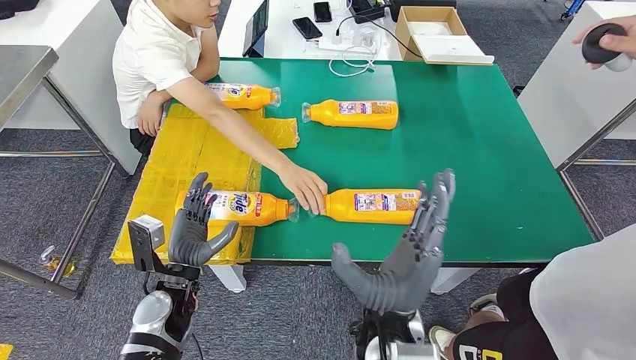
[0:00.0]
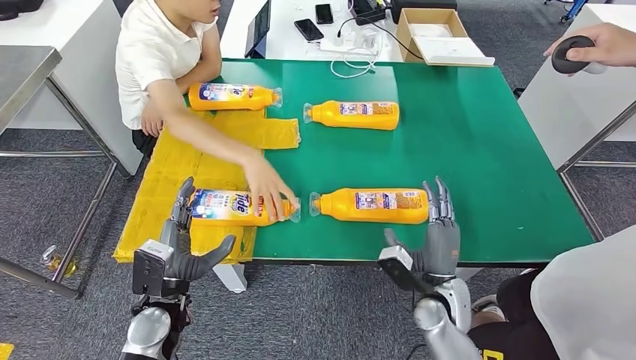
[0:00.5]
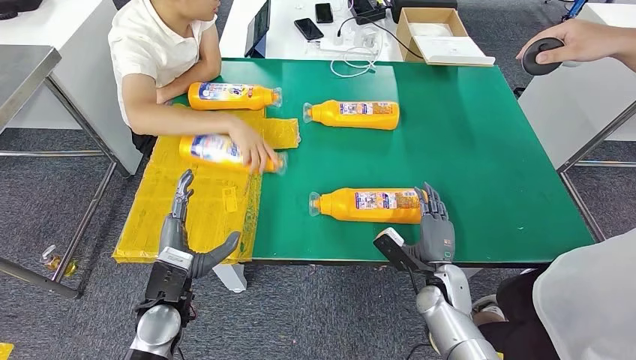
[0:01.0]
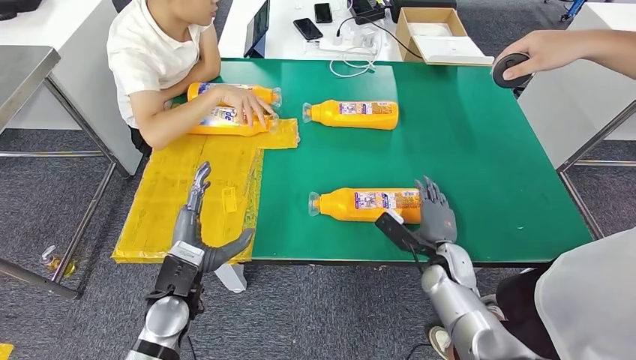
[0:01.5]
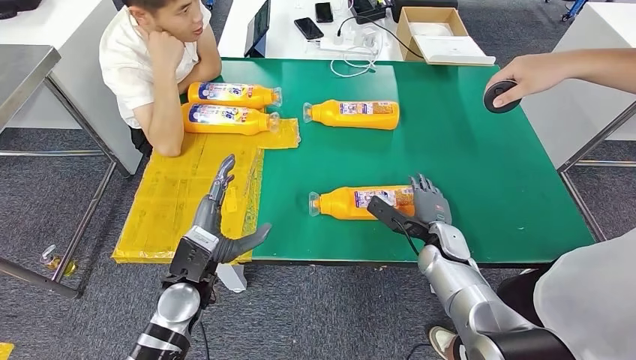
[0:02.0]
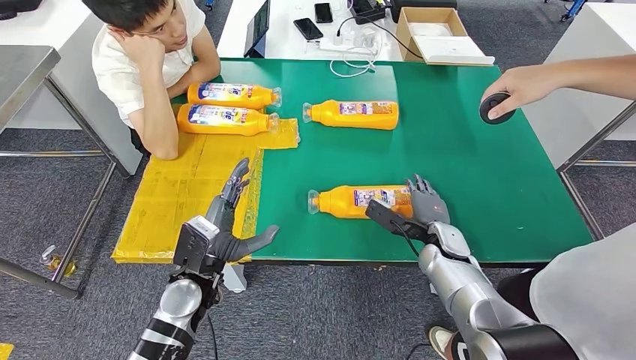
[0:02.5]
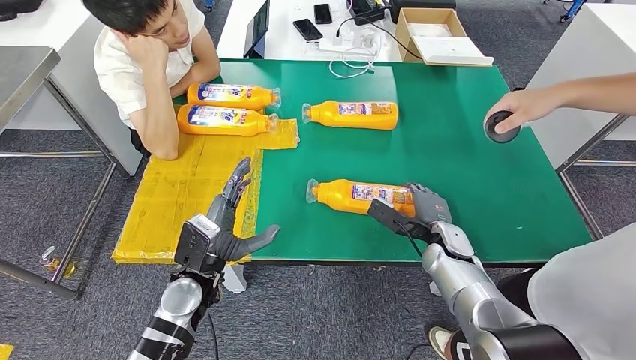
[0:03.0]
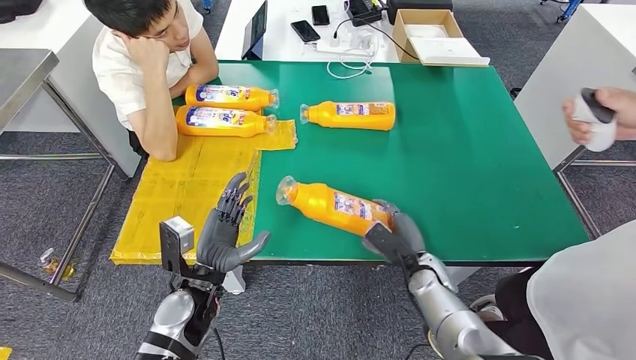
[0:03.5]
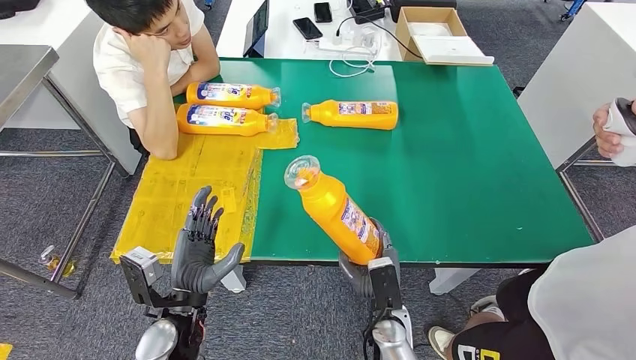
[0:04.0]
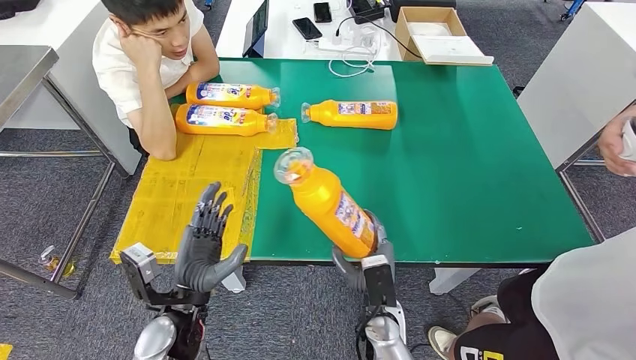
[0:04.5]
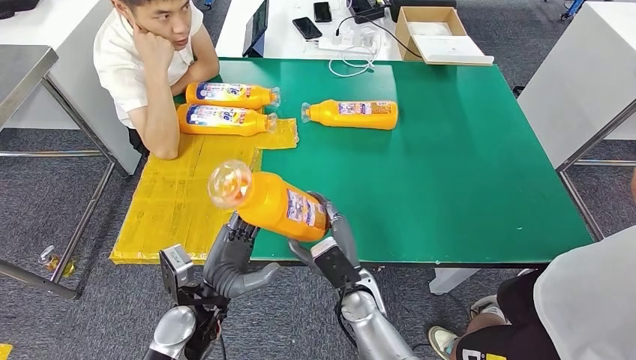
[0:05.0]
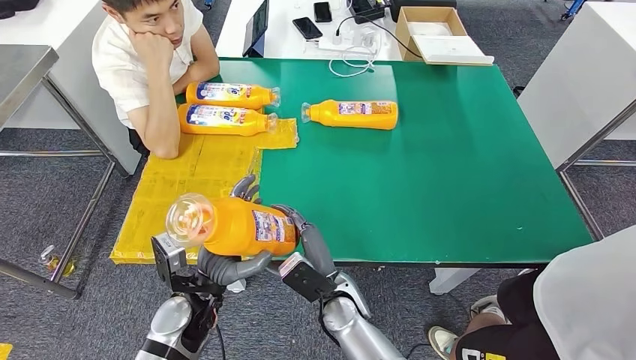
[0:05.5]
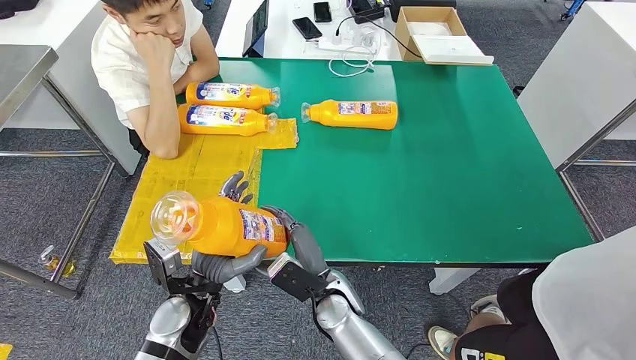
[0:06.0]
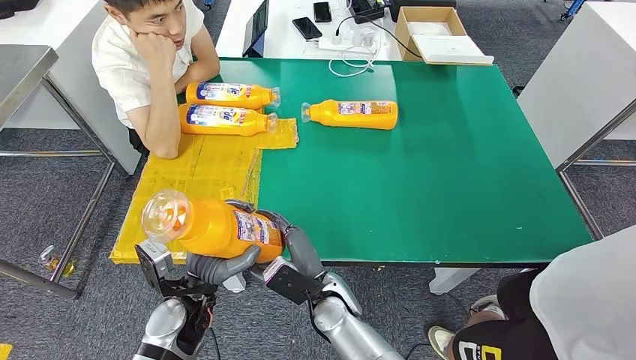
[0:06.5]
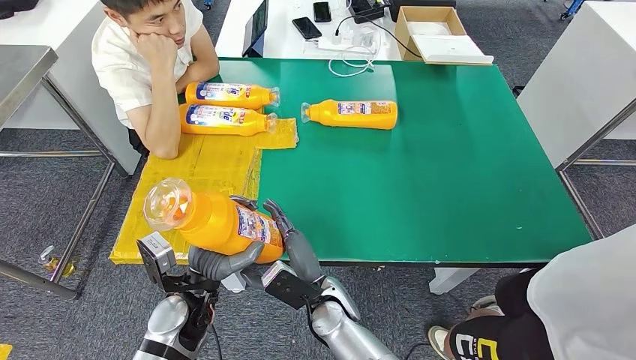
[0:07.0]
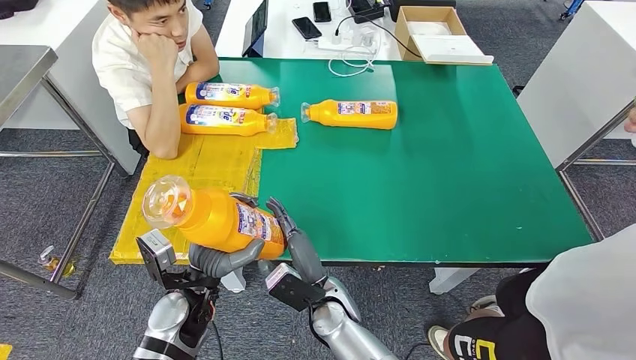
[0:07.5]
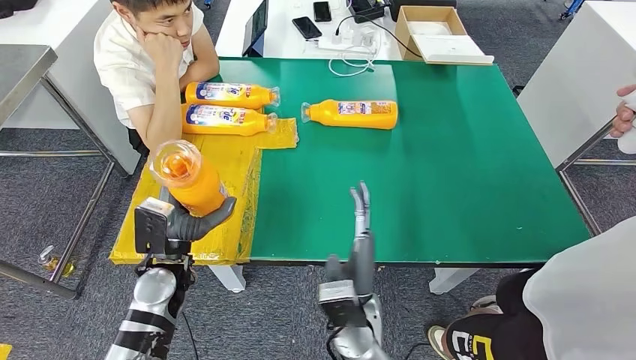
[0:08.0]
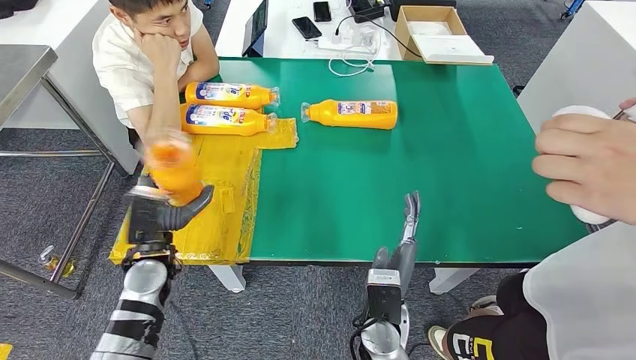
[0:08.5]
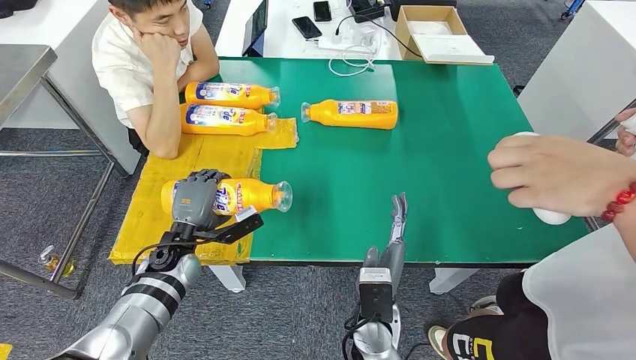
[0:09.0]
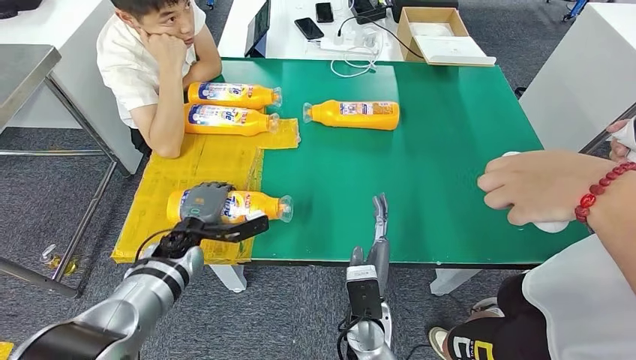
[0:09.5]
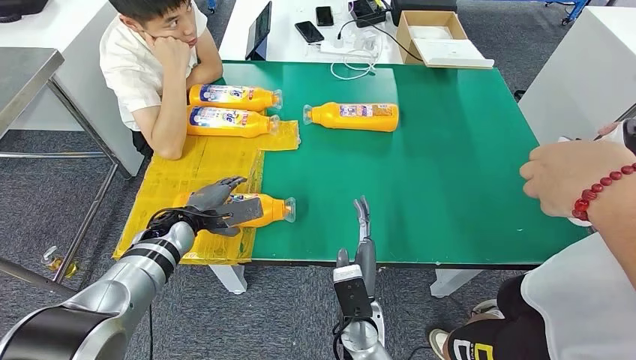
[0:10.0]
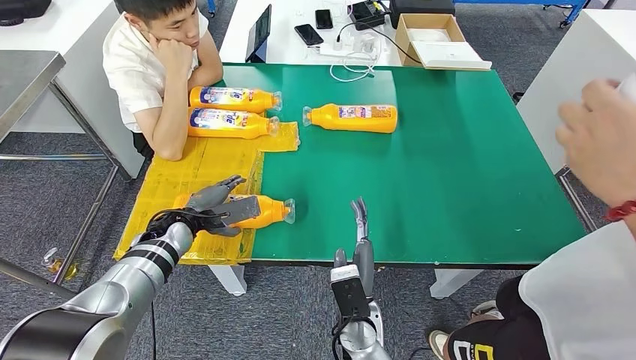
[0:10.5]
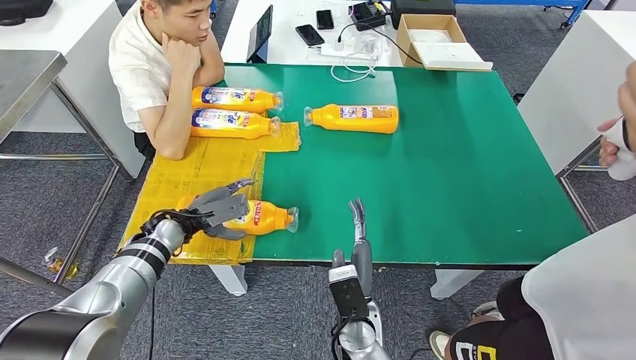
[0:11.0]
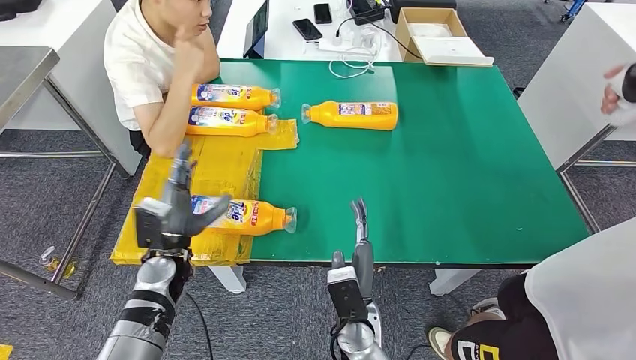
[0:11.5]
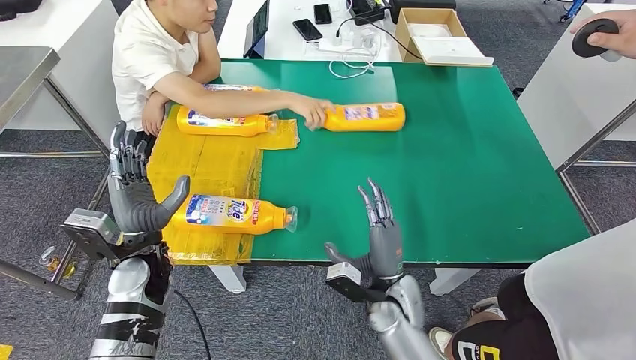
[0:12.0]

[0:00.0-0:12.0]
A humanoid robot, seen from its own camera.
Step, 0:00.0 to 0:06.5: Pick up the fast-moving consumer goods bottle from the table.
Step, 0:07.0 to 0:11.5: Flip the fast-moving consumer goods bottle to the front side.
0:04.0 to 0:06.0: The right hand is displaced to the left by some 10 cm.
0:06.0 to 0:08.0: The right hand shifts by approximately 5 cm. Meanwhile the left hand goes approximately 5 cm forward.

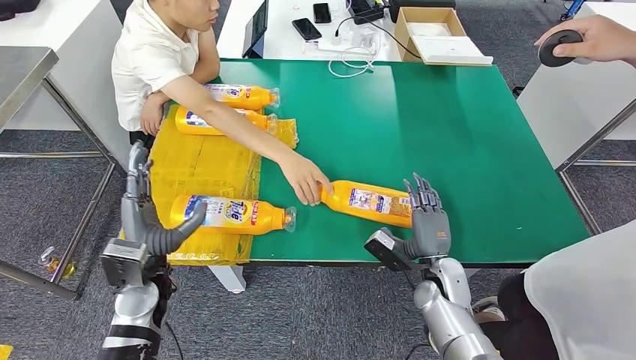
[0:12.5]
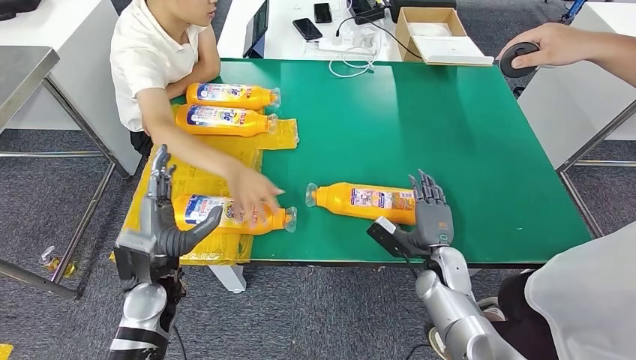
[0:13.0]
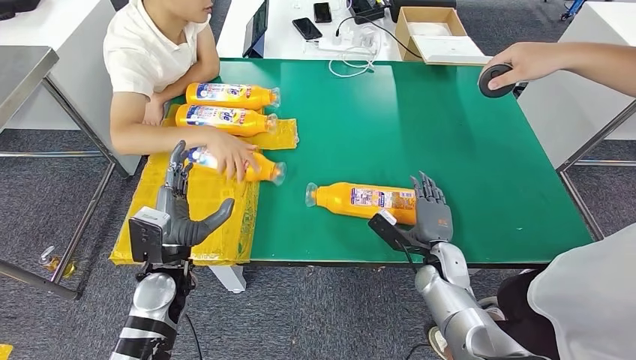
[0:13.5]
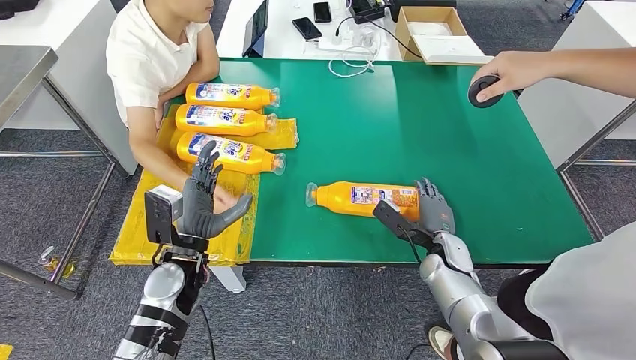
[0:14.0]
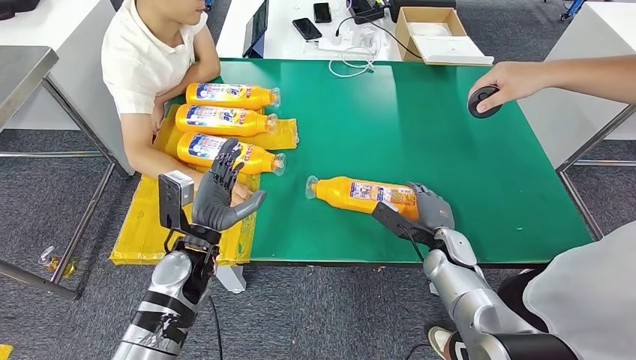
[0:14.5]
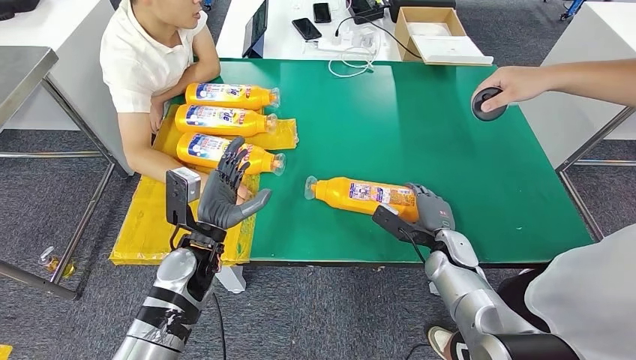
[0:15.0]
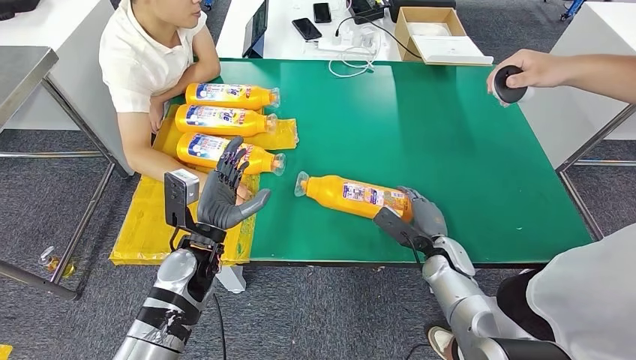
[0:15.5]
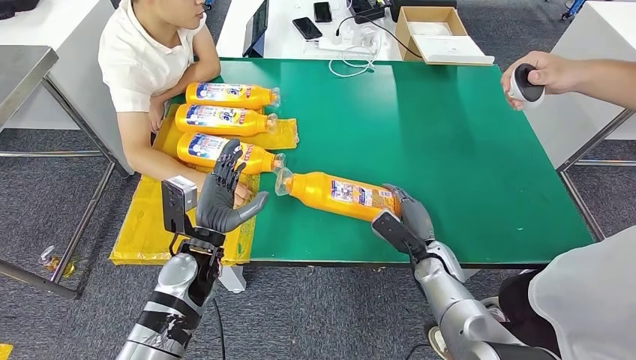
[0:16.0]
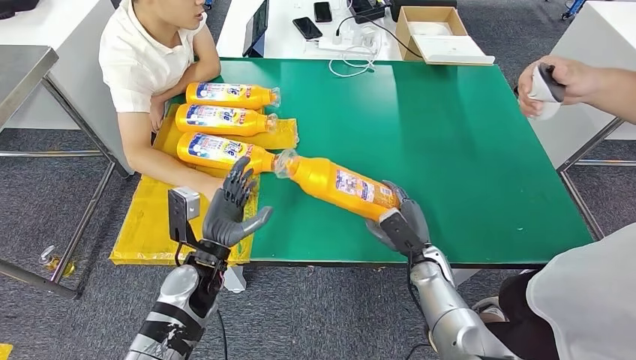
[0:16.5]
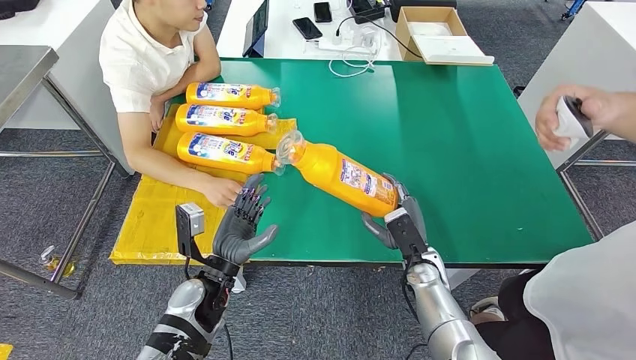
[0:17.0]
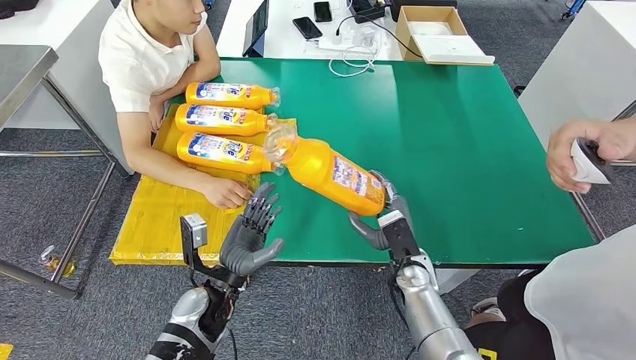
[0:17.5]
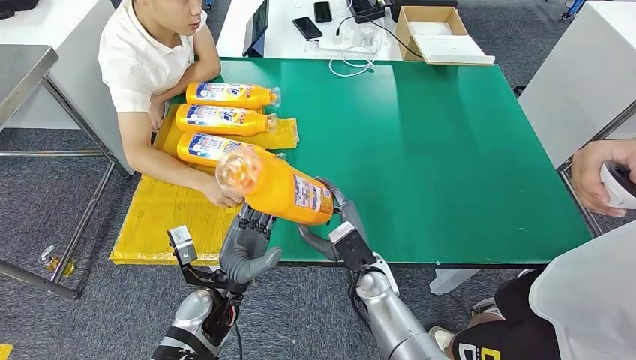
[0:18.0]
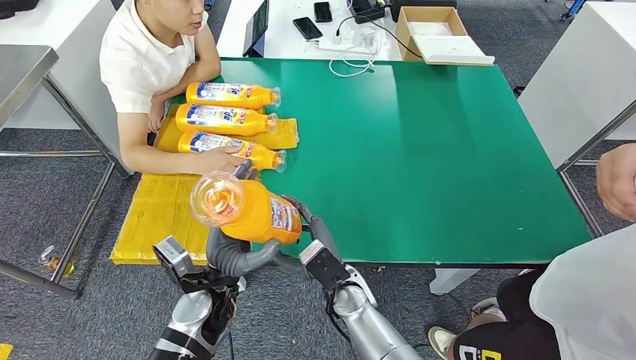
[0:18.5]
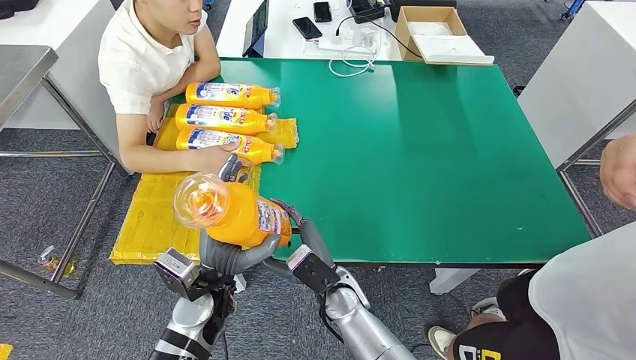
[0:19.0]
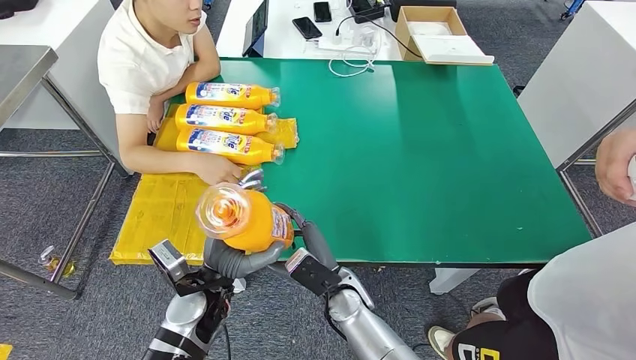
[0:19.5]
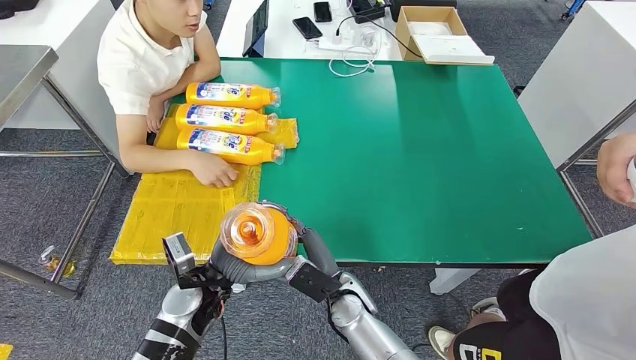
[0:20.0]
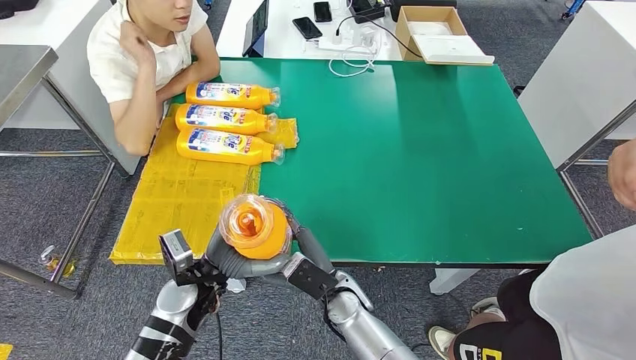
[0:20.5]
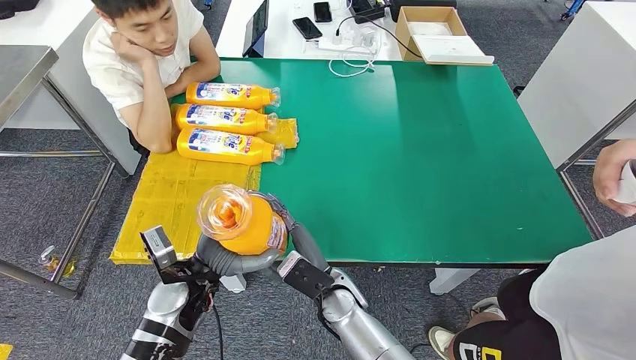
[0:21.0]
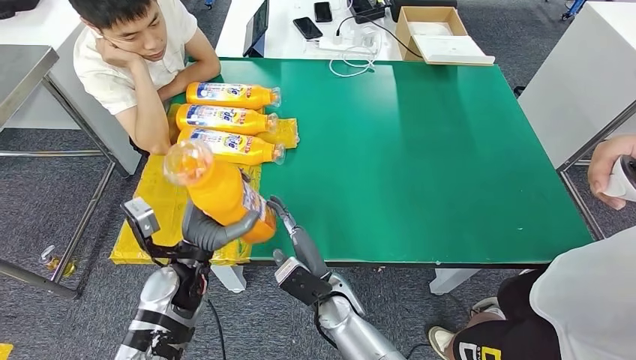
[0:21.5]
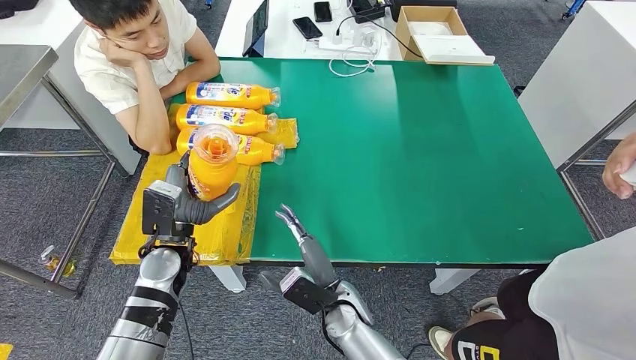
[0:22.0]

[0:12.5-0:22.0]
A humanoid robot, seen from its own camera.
Step, 0:12.5 to 0:19.5: Pick up the fast-moving consumer goods bottle from the table.
0:14.5 to 0:16.5: The right hand ends up roughly 5 cm from where it was.
0:16.5 to 0:18.0: The left hand shifts by approximately 5 cm. The right hand shifts about 15 cm to the left.
0:18.0 to 0:20.0: The right hand moves roughly 5 cm.
0:20.0 to 0:22.0: The left hand heads forward and to the left, covering approximately 10 cm.
